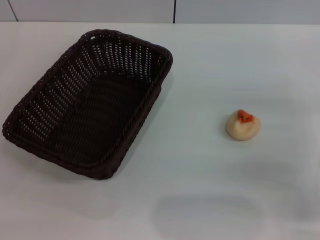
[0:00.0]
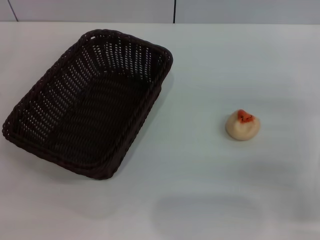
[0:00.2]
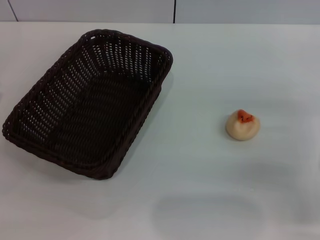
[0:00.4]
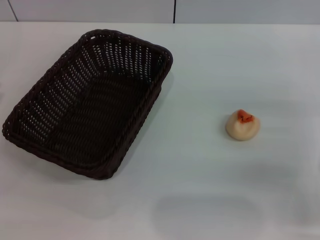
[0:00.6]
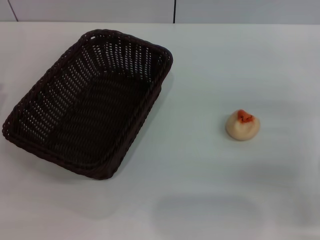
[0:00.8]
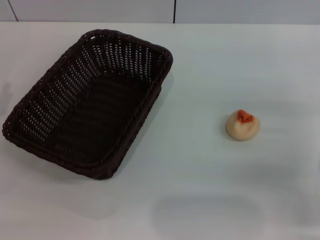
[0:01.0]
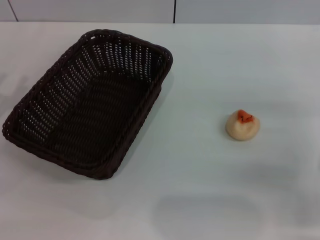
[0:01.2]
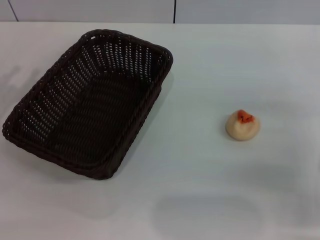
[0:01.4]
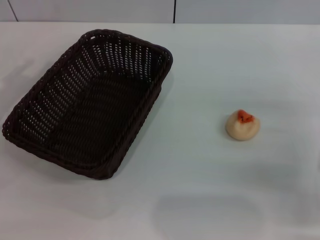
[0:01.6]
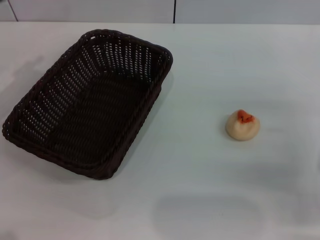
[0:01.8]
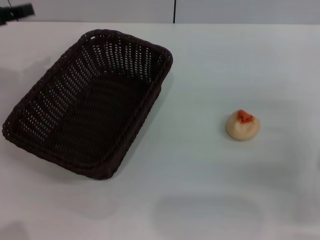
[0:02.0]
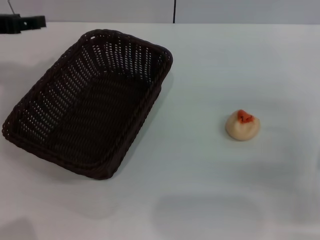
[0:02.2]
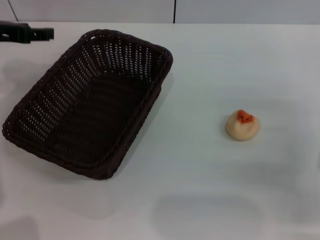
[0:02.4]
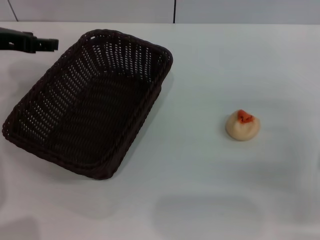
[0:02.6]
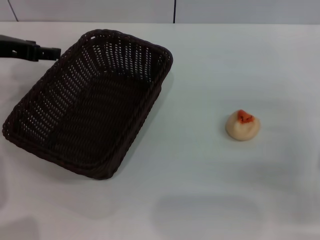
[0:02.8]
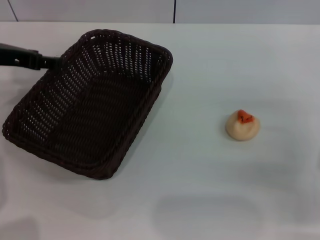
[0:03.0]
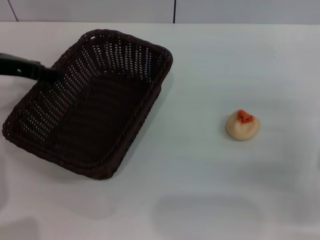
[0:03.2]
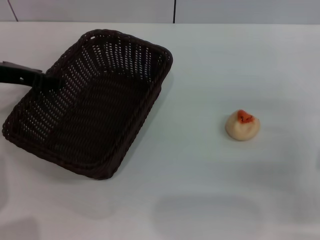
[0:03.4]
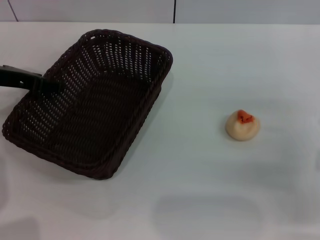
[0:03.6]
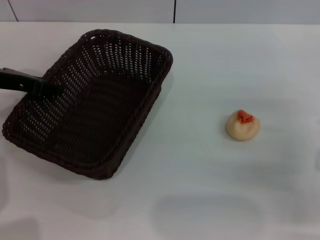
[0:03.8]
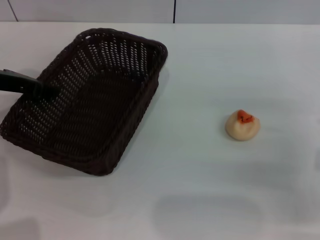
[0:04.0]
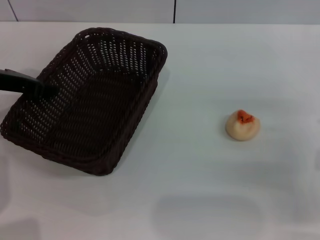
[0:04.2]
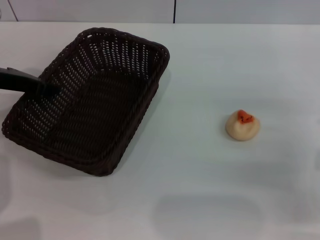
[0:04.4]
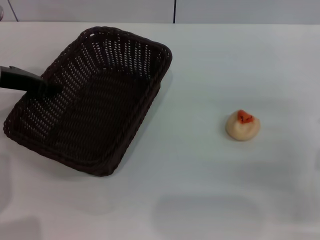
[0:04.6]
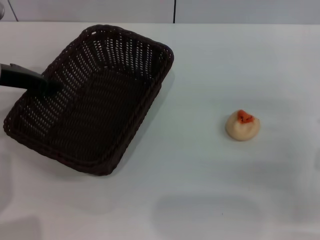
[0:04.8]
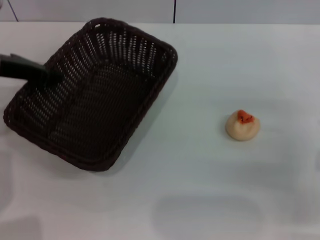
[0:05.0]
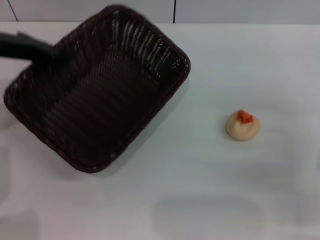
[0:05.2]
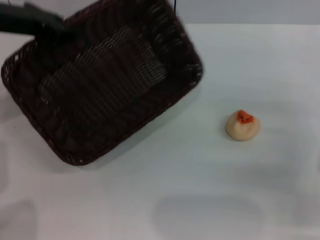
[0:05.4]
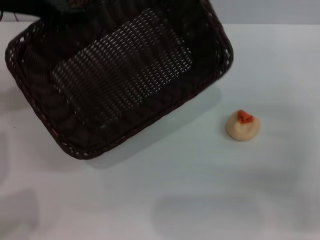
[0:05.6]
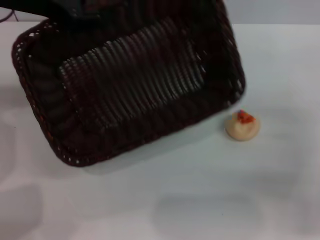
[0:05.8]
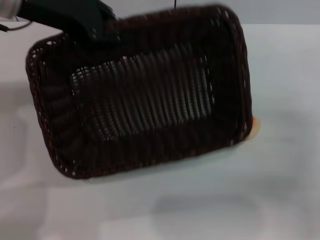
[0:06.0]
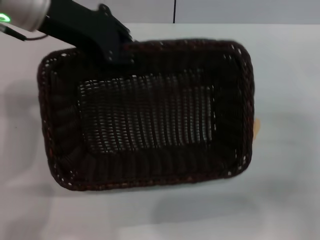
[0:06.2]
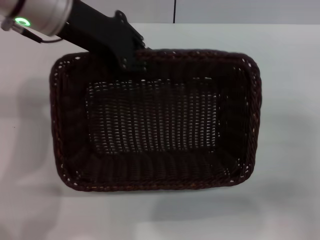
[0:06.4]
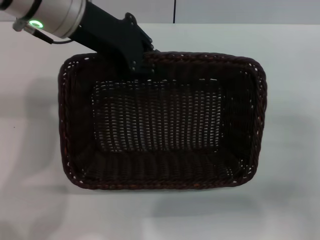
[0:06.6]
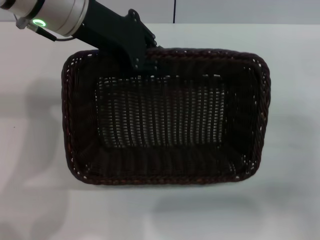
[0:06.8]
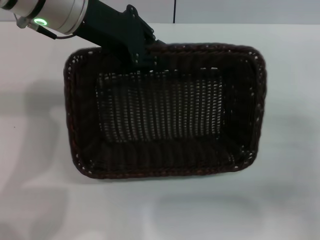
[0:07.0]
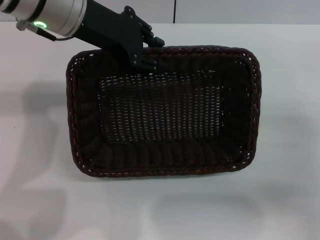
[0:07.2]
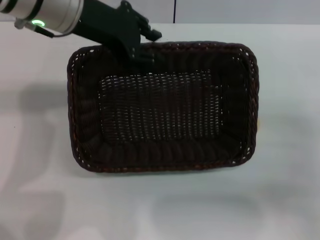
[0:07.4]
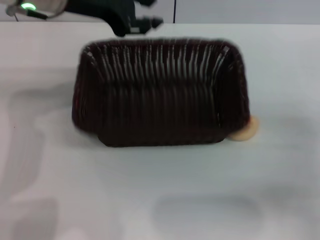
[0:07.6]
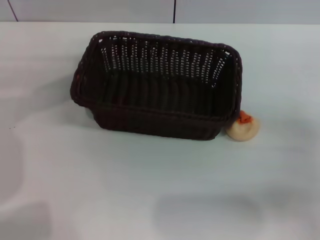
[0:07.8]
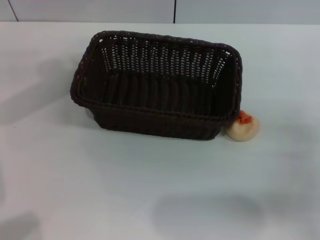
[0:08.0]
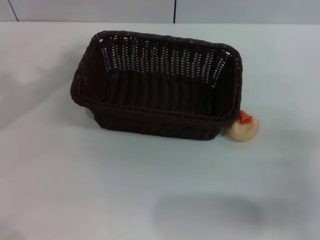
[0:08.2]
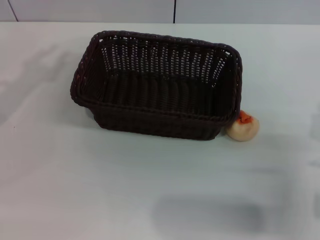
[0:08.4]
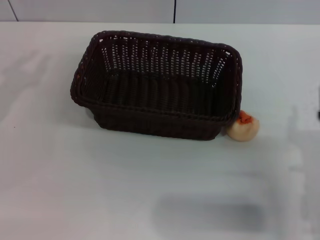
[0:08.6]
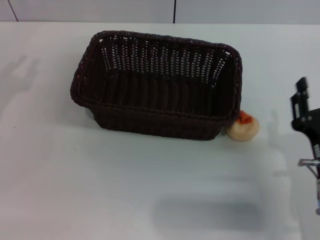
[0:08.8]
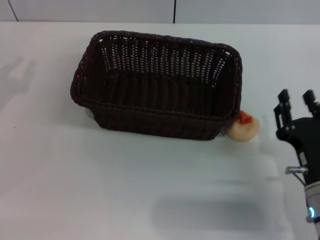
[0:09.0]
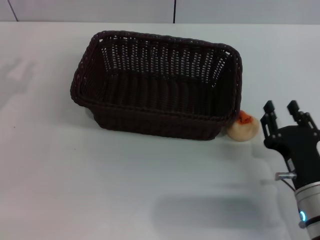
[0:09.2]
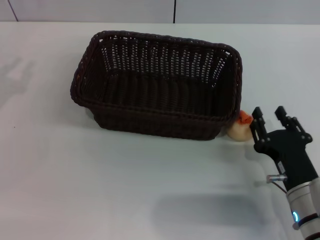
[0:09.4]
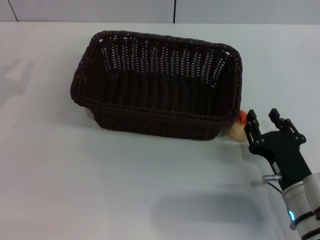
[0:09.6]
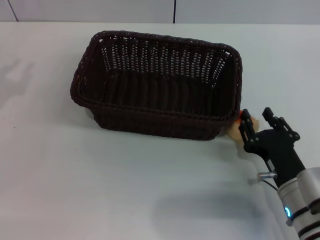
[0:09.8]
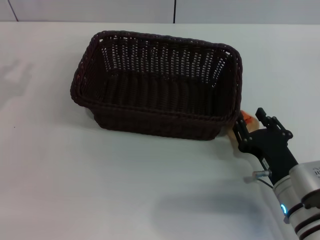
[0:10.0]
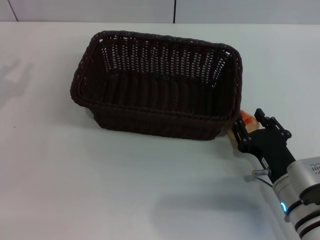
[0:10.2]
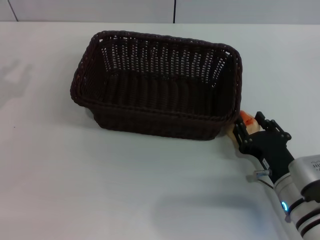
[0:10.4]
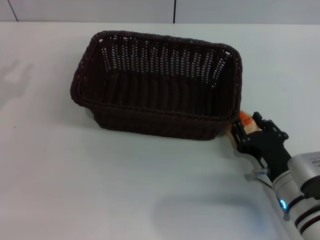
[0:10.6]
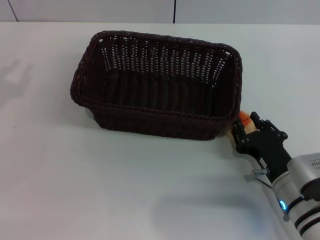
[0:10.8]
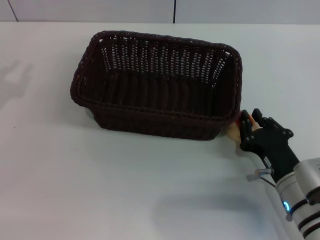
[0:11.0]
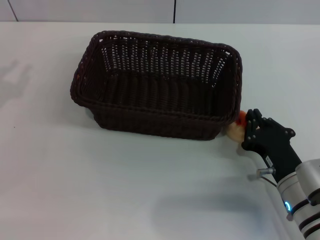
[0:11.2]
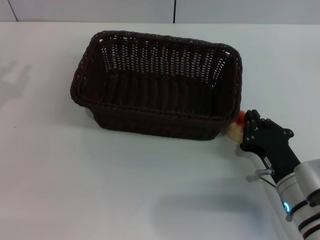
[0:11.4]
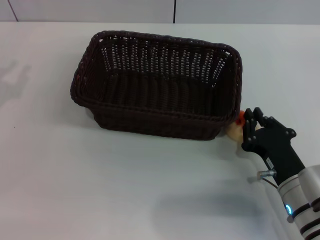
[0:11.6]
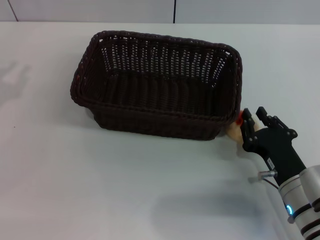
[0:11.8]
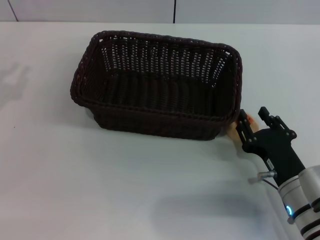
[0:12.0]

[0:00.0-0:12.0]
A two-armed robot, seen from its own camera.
Step, 0:00.0 to 0:07.4: Move the basket to the center of view with the left gripper.
0:01.6 to 0:03.0: The left gripper moves to the right and forward, about 10 cm.
0:03.0 to 0:04.4: The left gripper closes its fingers.
0:04.4 to 0:06.0: The left gripper heads upward and to the right, covering some 15 cm.
0:06.0 to 0:07.6: The left gripper opens up.
0:07.6 to 0:09.0: The left gripper goes some 25 cm to the left, downward and backward. Meanwhile the right gripper travels to the left by approximately 10 cm.
0:09.0 to 0:10.4: The grippers make only small movements.
0:10.4 to 0:12.0: The right gripper closes, then opens again.

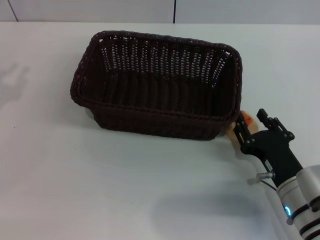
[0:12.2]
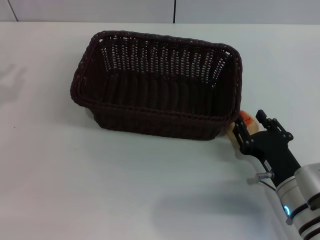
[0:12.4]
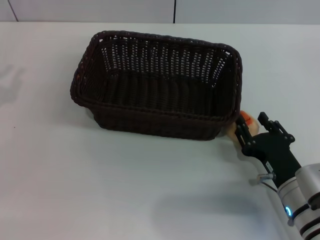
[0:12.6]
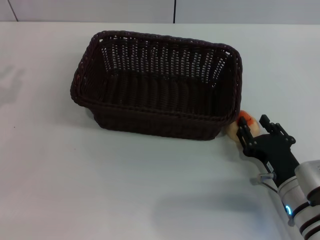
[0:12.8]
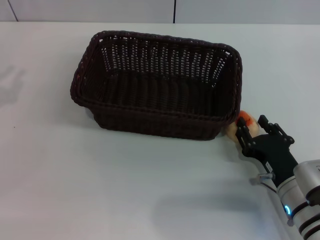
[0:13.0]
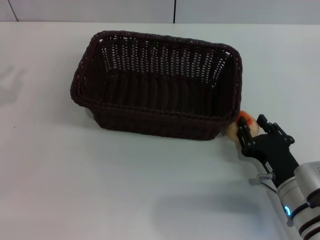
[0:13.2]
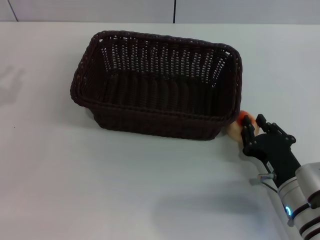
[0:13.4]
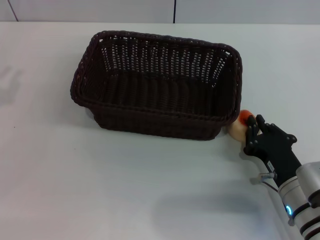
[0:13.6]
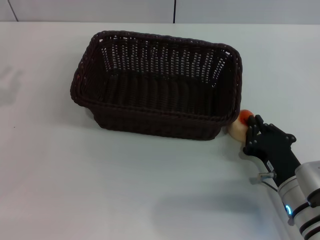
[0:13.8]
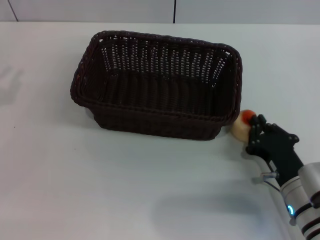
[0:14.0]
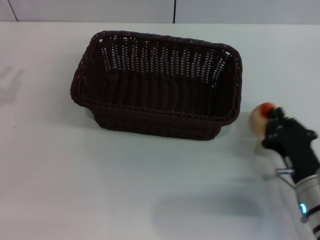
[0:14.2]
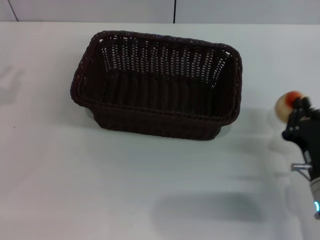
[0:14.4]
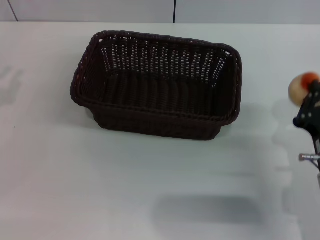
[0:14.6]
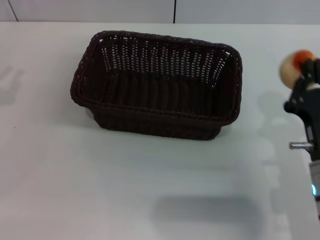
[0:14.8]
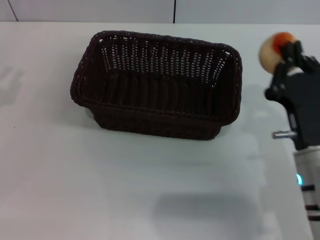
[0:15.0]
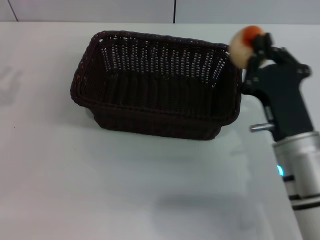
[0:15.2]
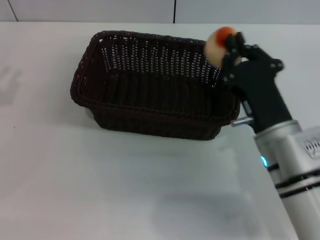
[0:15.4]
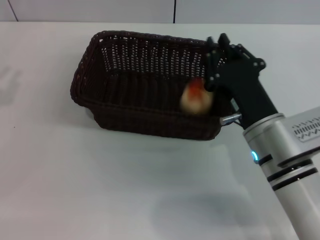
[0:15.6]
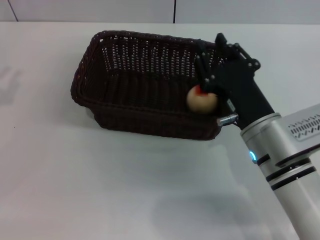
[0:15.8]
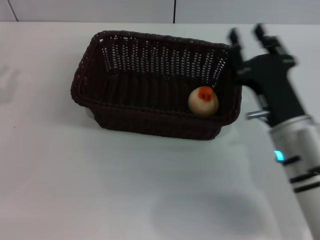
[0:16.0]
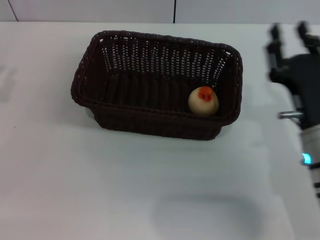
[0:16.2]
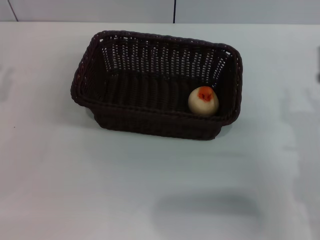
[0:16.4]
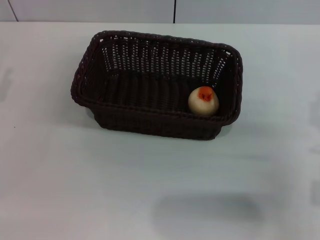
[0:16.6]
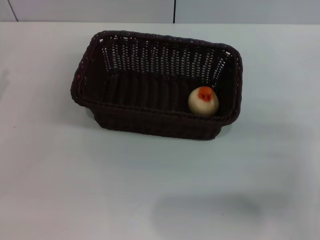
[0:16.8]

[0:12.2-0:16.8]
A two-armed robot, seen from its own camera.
Step, 0:12.2 to 0:14.4: Pick up the egg yolk pastry with the right gripper.
Step, 0:14.8 to 0:16.0: Place the egg yolk pastry into the basket with the right gripper.
0:12.2 to 0:13.8: The right gripper closes its fingers.
0:13.8 to 0:15.2: The right gripper is displaced upward by some 10 cm.
0:15.2 to 0:16.8: The right gripper heads to the right, covering some 15 cm, and opens its fingers, while the left gripper goes about 5 cm downward.

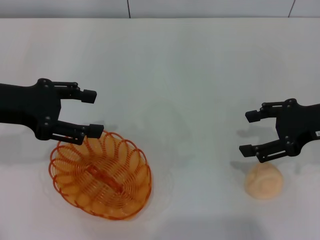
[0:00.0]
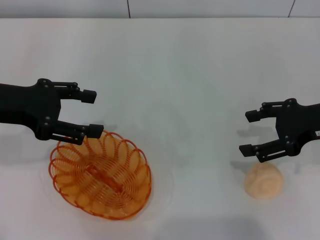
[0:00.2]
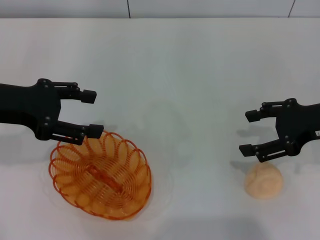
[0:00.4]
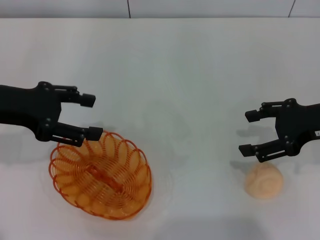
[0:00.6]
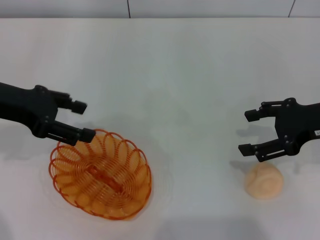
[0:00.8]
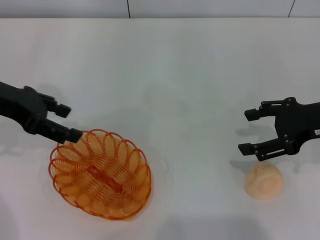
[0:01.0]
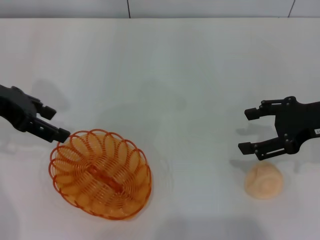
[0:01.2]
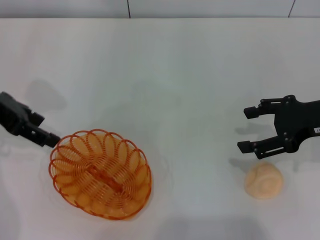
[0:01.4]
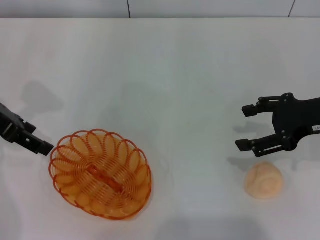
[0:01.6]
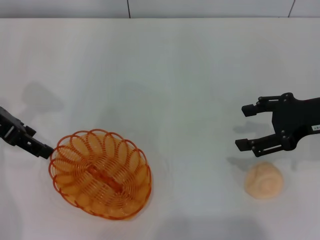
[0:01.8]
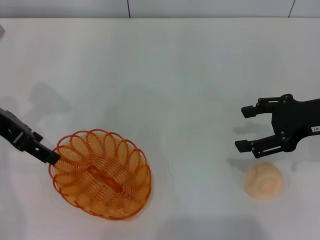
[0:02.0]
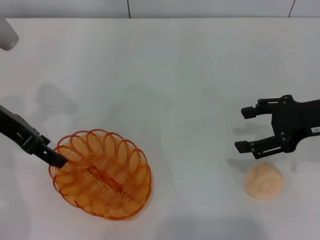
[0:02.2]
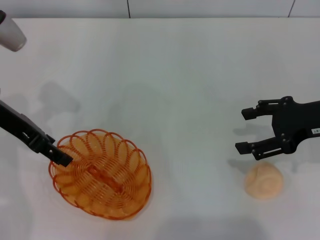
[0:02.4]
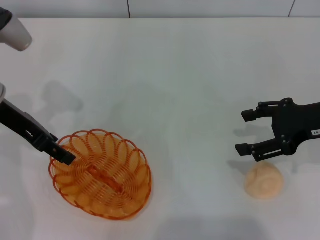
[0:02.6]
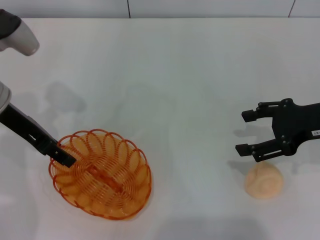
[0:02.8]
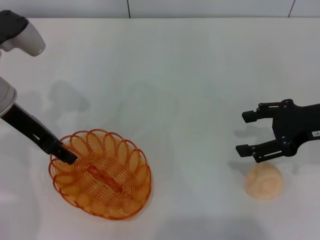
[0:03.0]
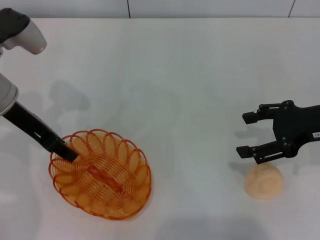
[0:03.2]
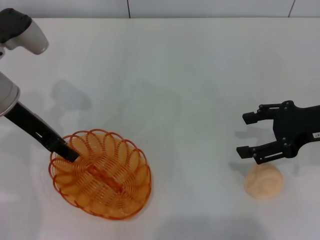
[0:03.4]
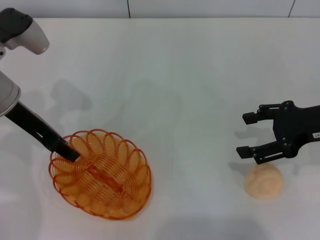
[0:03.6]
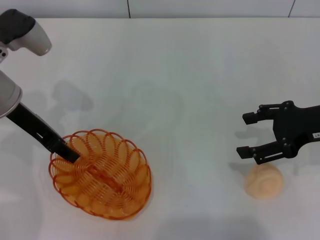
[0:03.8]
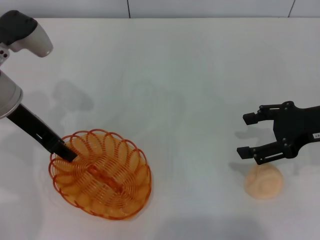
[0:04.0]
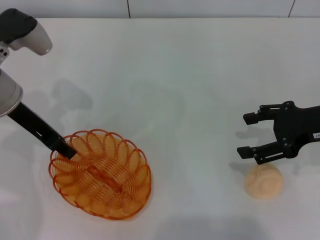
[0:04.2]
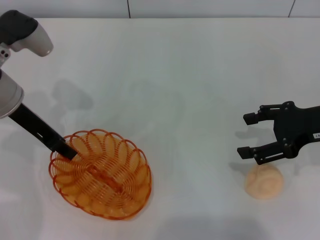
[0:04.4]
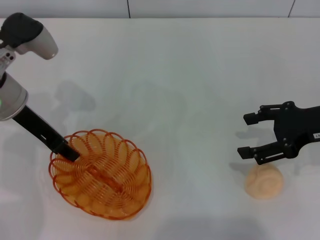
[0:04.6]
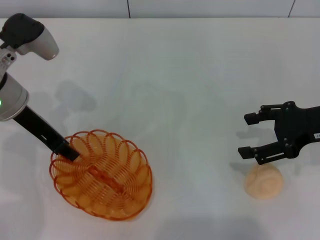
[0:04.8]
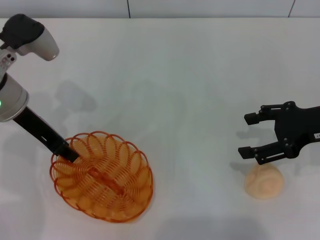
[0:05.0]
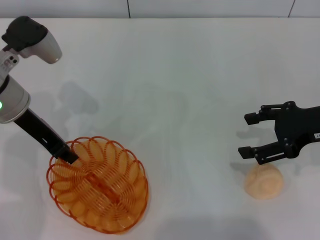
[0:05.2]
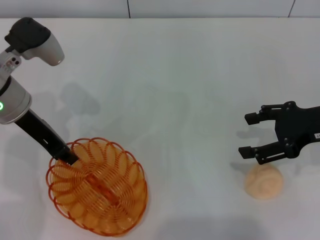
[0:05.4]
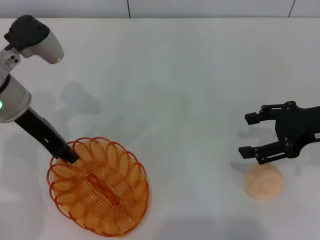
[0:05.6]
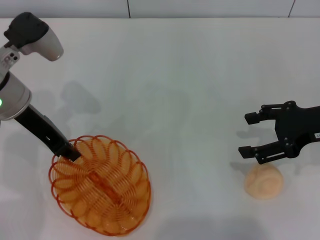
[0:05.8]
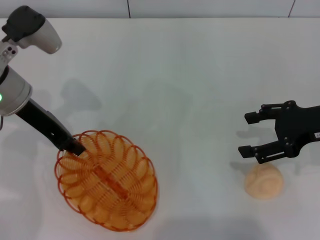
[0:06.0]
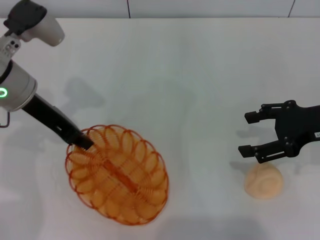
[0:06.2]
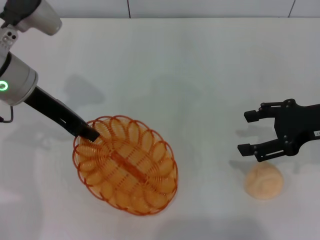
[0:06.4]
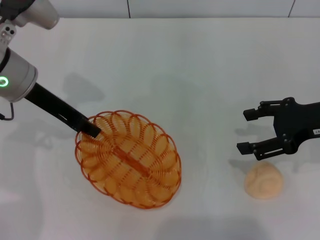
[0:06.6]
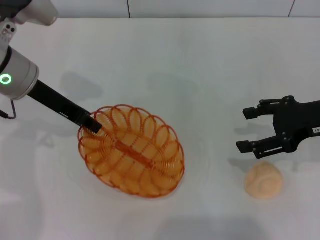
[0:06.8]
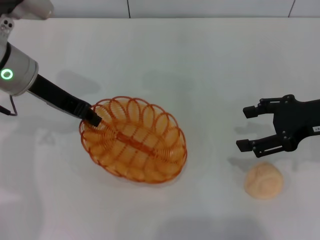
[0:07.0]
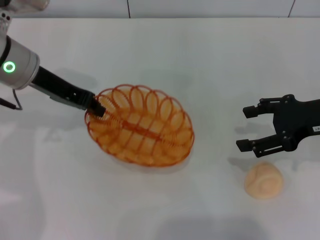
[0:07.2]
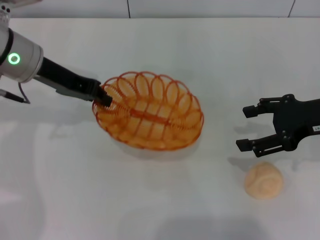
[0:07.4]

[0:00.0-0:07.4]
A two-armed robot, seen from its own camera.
Step, 0:00.0 to 0:06.8: Pick up the basket with the left gripper.
0:01.4 to 0:03.0: The left gripper ends up about 5 cm from where it was.
0:03.0 to 0:04.4: The left gripper closes its fingers.
0:04.4 to 0:06.0: The grippers stay close to where they were, moving slightly.
